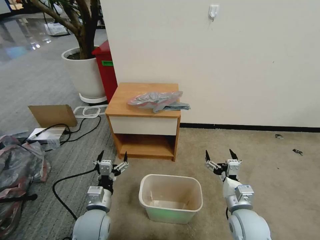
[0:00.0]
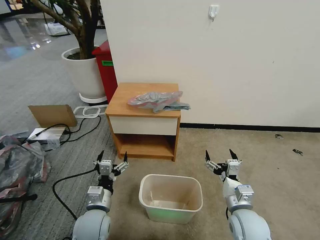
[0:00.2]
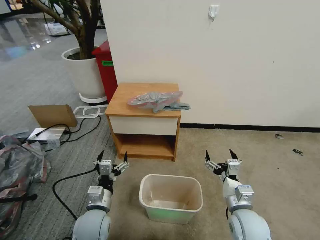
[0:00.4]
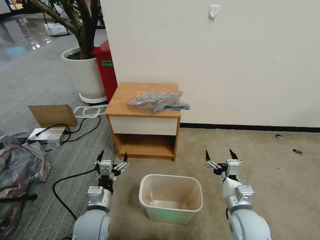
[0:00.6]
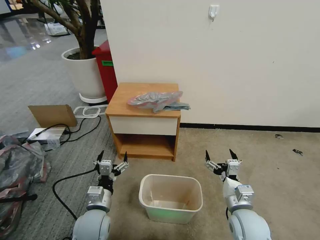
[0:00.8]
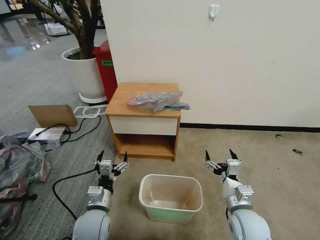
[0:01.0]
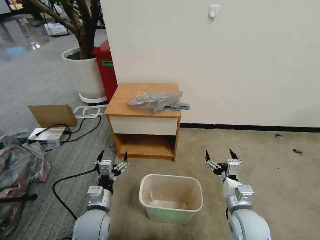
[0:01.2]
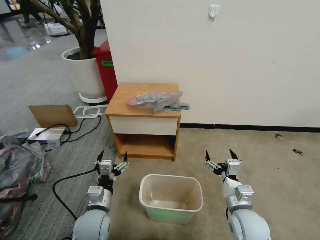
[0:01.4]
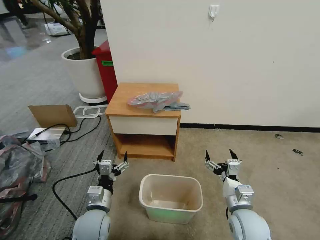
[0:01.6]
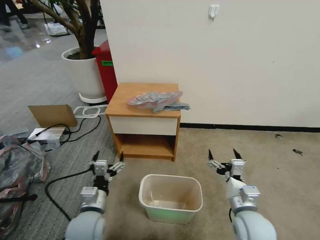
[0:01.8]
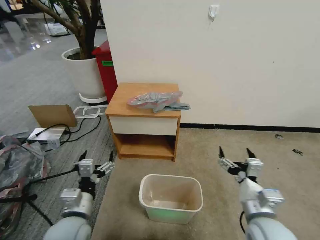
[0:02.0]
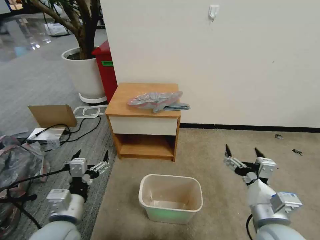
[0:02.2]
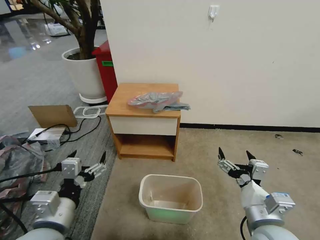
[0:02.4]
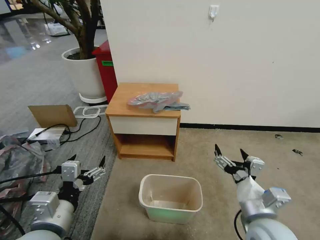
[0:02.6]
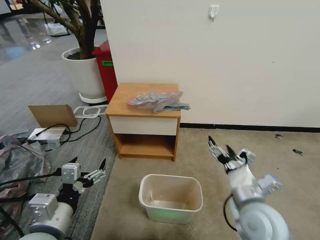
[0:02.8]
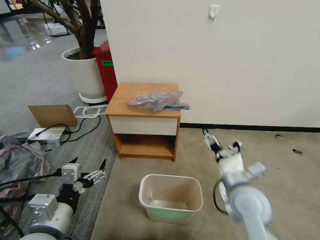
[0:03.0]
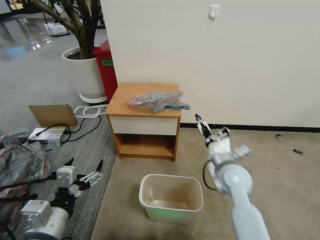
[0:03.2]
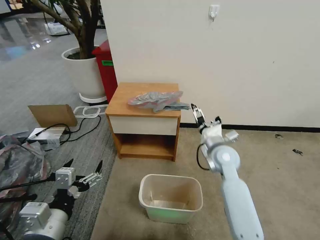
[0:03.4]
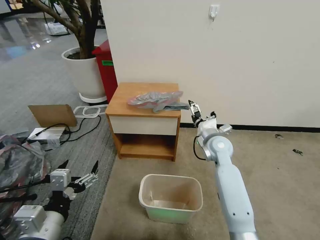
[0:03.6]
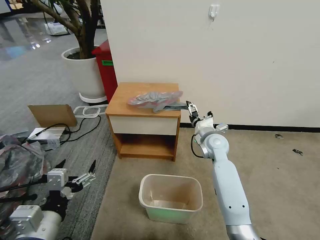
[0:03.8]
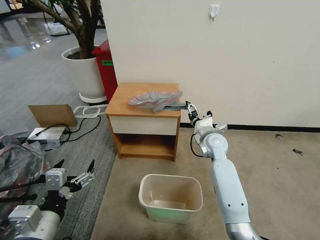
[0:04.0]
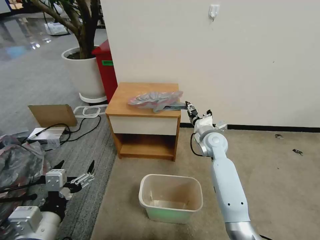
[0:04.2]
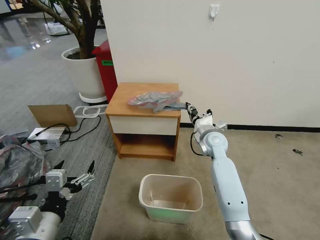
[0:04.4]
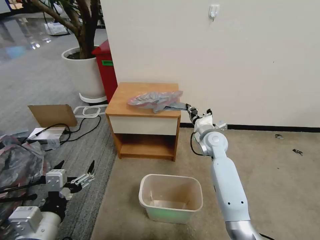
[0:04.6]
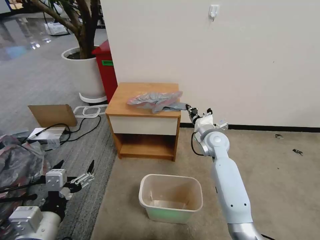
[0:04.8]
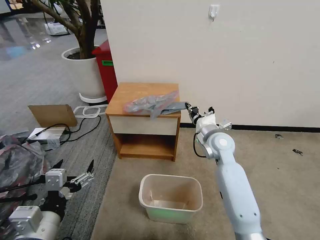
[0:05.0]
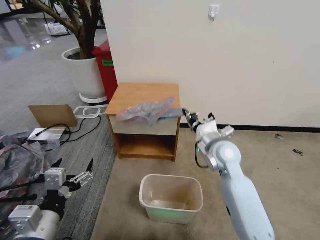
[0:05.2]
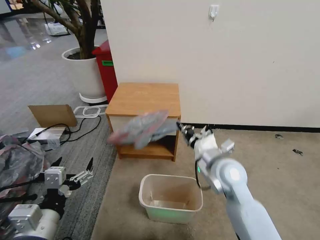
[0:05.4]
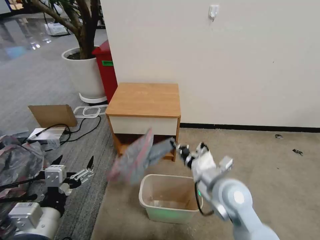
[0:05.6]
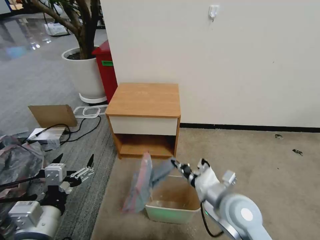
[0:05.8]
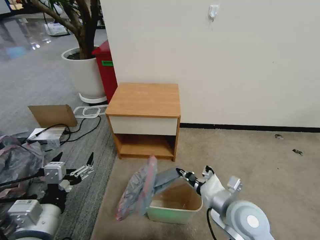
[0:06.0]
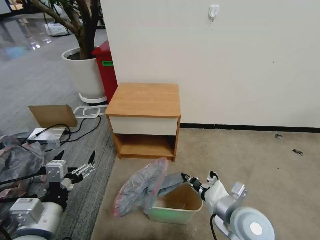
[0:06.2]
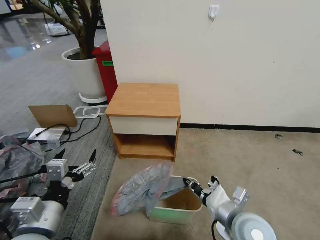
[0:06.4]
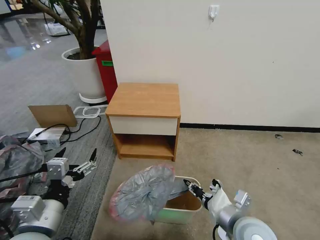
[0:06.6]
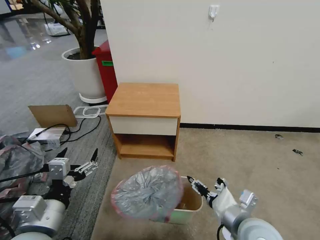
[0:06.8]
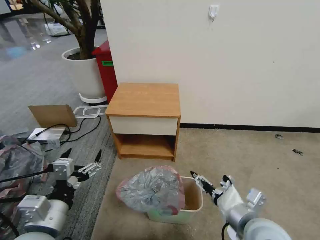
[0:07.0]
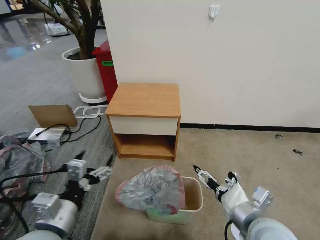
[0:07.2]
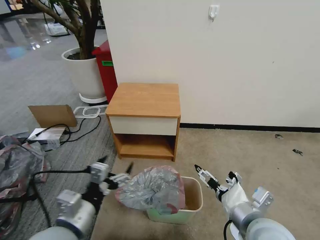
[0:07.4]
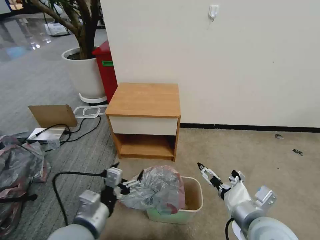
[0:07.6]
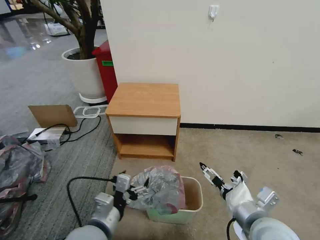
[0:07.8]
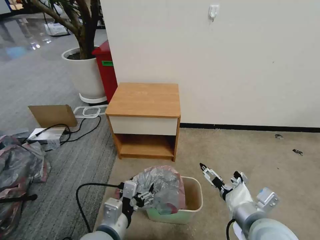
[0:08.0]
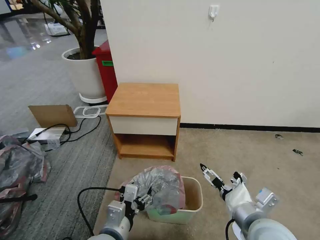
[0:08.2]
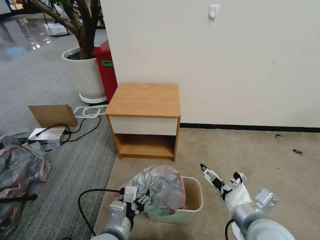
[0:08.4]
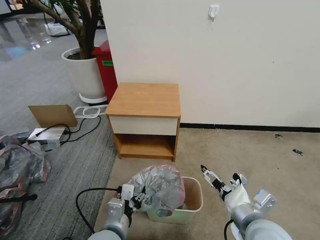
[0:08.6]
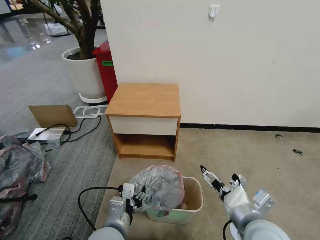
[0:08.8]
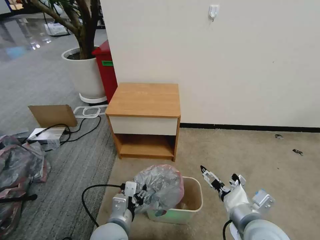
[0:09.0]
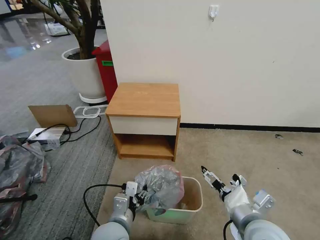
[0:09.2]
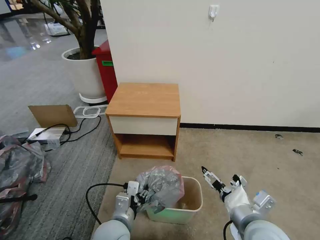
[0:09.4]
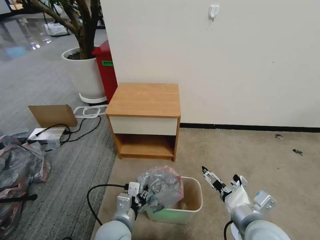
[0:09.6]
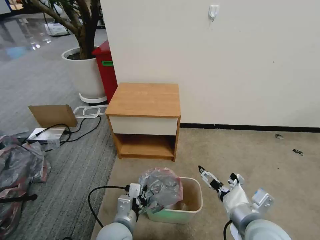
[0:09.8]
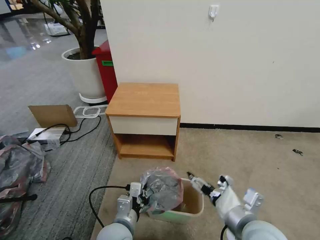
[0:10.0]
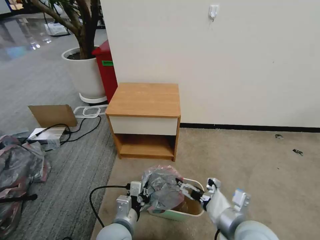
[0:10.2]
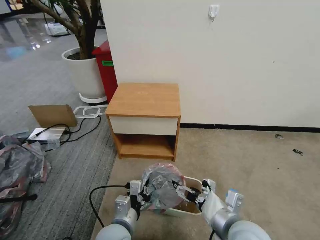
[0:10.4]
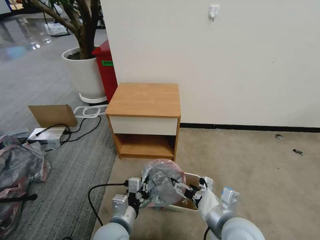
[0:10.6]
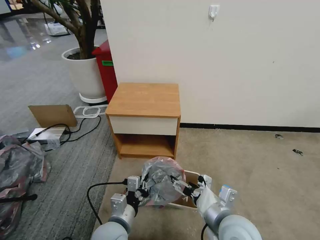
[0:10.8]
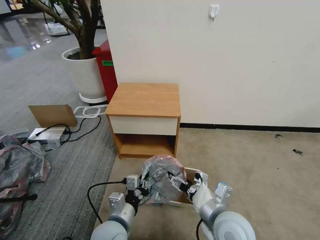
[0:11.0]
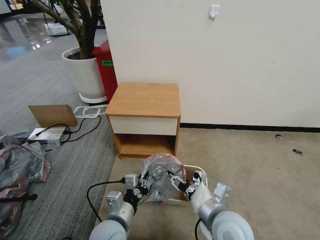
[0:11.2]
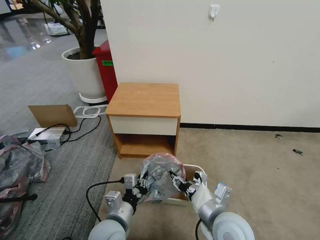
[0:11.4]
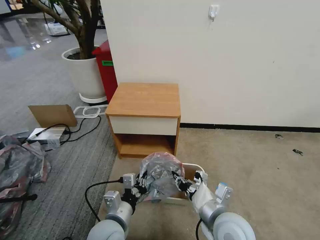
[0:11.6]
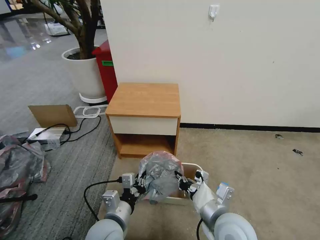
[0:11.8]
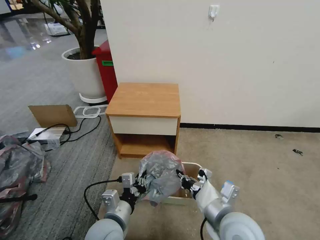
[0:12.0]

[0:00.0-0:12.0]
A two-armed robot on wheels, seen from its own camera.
Task of the whole recording: Pick up the garbage bag from the table and place it over the trash can.
0:01.6 to 0:03.0: The left gripper is displaced upward and backward by some 15 cm. Meanwhile the right gripper moves upward, some 10 cm.
0:03.0 to 0:04.4: The right gripper shifts roughly 20 cm forward, and closes its fingers.
0:04.4 to 0:06.0: The right gripper shifts approximately 25 cm backward, and closes up.
0:06.0 to 0:07.6: The left gripper moves to the right, about 5 cm; the right gripper changes place by approximately 5 cm, and opens.
0:07.6 to 0:09.0: The left gripper moves downward and to the right, roughly 10 cm, and closes its fingers.
0:09.0 to 0:10.4: The left gripper closes.
0:10.4 to 0:12.0: The right gripper closes up.

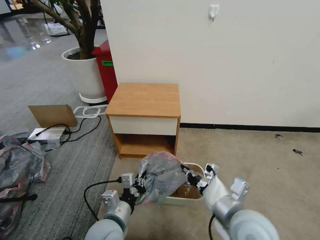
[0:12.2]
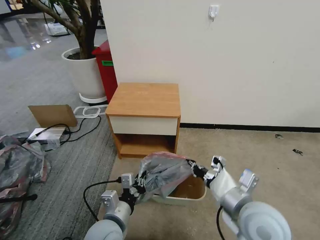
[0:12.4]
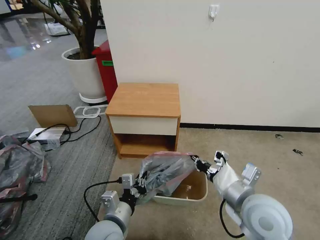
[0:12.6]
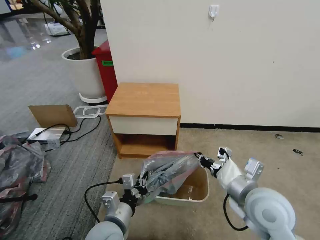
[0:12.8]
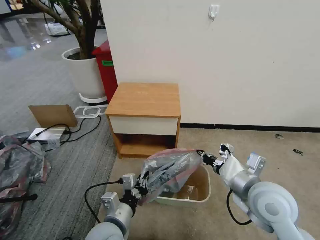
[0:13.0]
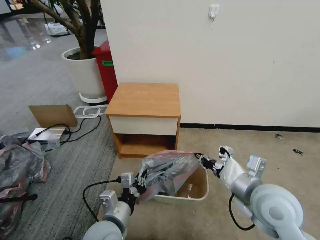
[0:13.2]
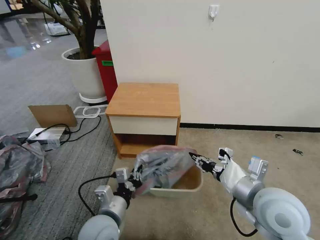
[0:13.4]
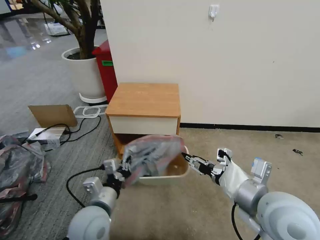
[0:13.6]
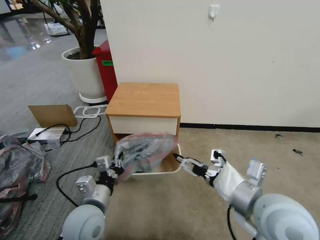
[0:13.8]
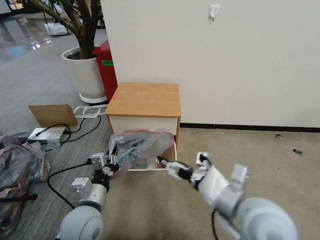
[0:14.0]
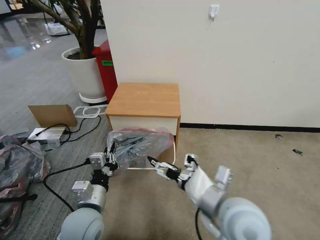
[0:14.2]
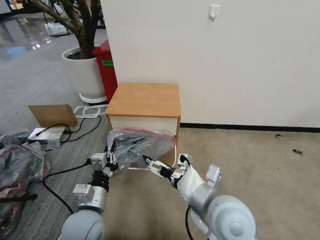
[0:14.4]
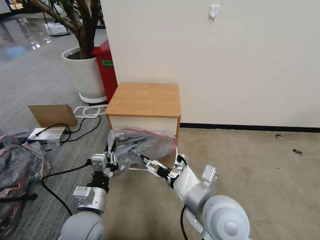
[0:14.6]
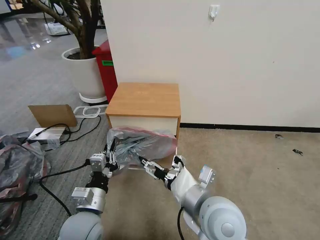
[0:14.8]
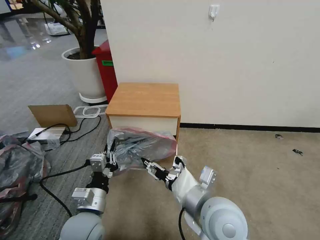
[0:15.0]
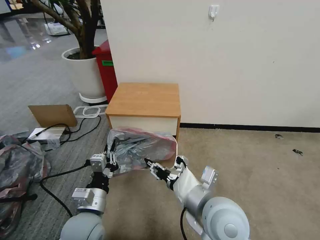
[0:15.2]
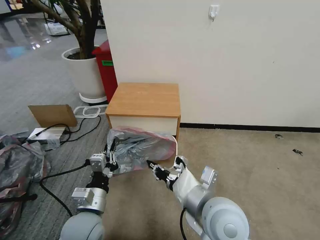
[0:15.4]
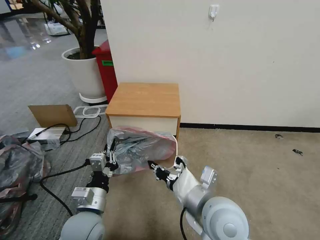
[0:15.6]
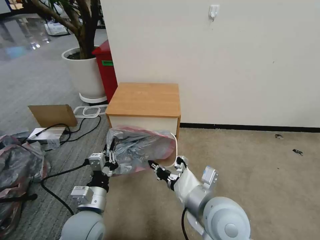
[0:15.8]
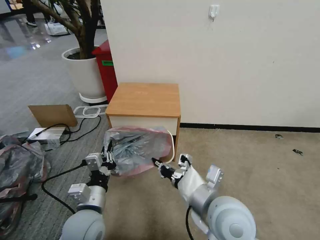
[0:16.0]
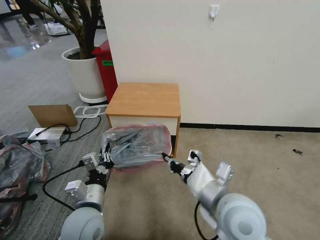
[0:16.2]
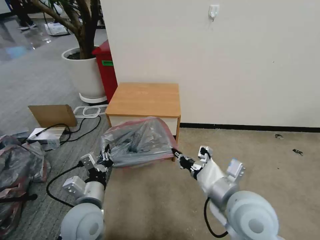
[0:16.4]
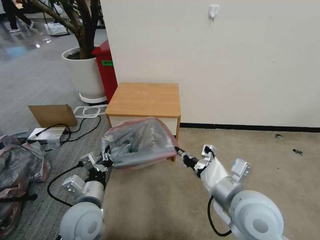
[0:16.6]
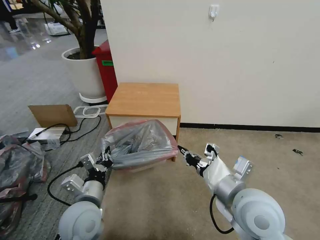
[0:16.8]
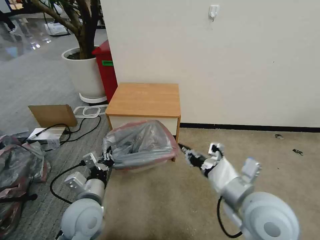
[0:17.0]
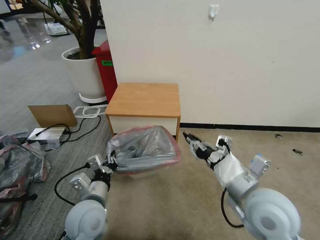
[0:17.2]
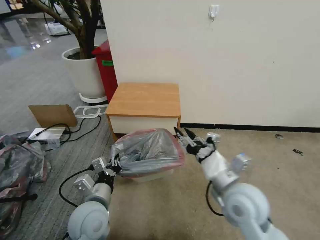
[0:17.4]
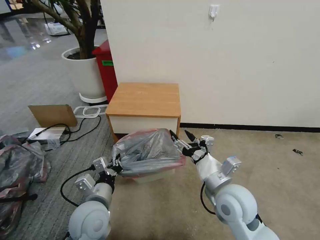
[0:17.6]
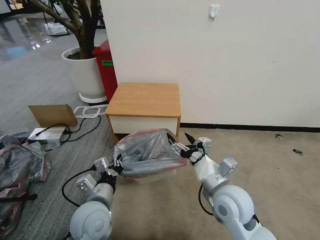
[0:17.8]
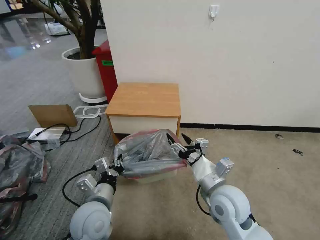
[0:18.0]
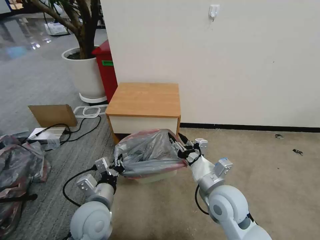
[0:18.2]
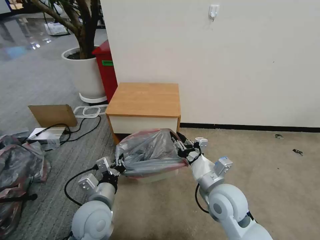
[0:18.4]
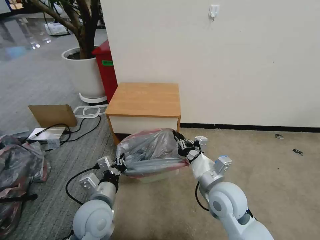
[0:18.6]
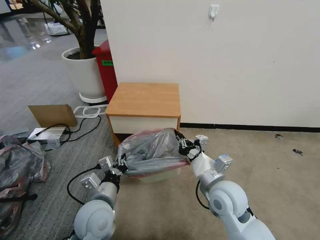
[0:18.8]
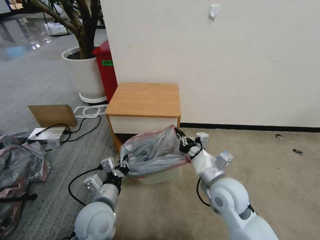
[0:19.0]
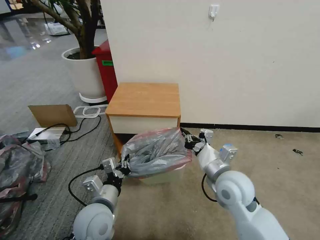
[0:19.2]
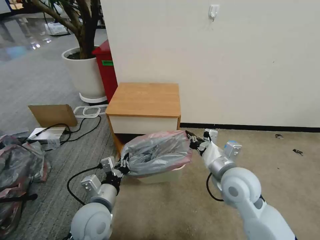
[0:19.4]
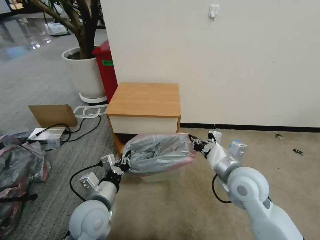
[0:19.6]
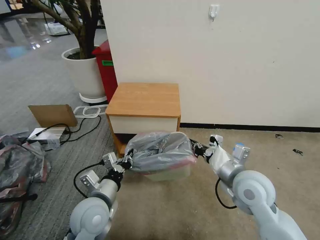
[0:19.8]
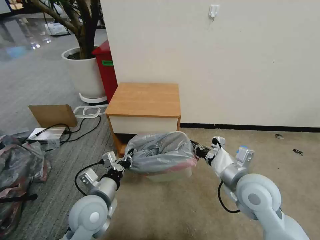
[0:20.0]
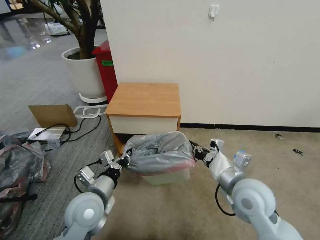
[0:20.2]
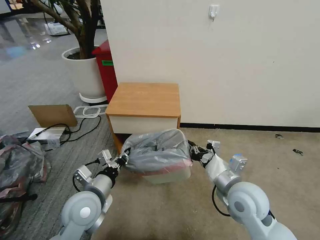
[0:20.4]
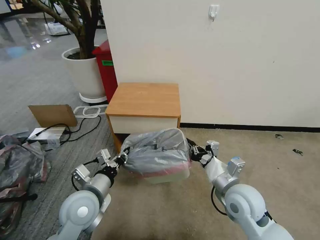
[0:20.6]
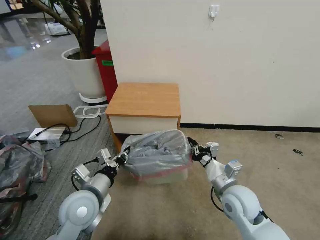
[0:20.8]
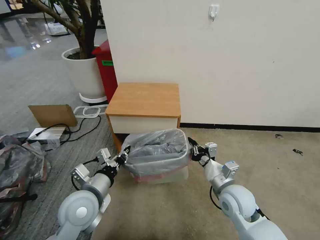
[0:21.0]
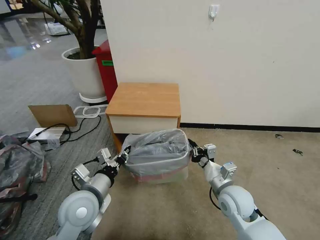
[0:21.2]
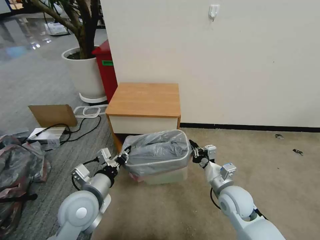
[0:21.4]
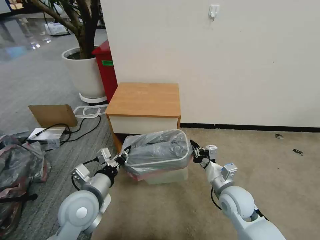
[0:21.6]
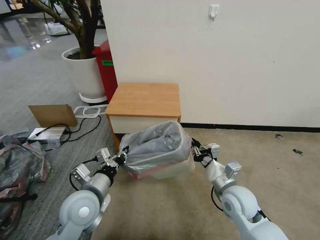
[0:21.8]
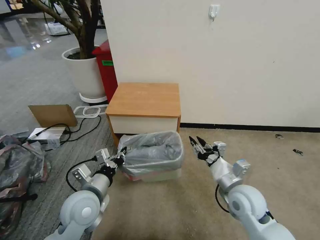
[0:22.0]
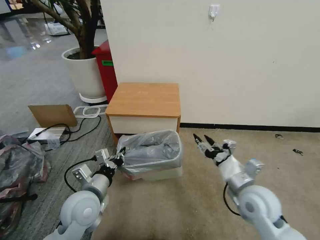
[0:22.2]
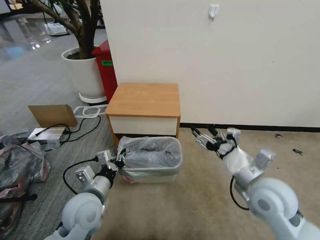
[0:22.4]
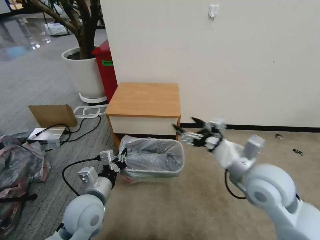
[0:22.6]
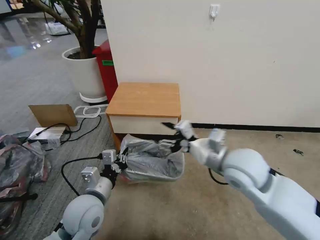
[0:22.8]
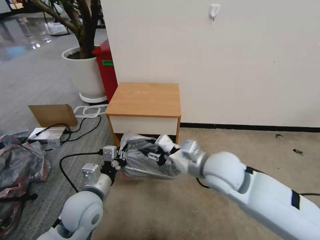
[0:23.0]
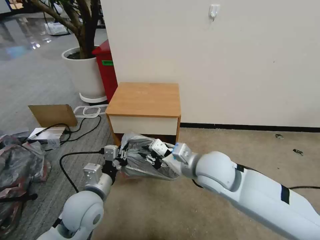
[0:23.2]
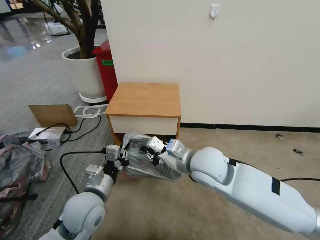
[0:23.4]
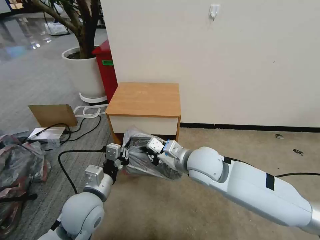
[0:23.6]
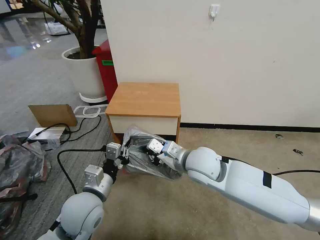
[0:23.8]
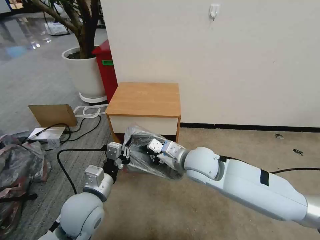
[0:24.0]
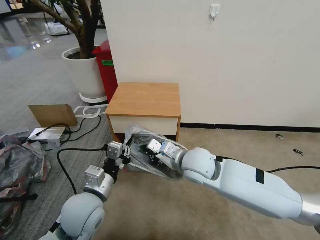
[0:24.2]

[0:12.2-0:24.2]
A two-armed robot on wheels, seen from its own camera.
Task of the whole recording: Pick up the garbage bag from the table and place it over the trash can.
0:12.2 to 0:13.8: The left gripper shifts by some 5 cm. The right gripper heads upward, covering roughly 10 cm, and opens up.
0:13.8 to 0:15.2: The right gripper goes roughly 10 cm to the left, and closes up.
0:15.2 to 0:16.6: The right gripper is displaced to the right by some 5 cm, and closes.
0:16.6 to 0:18.2: The right gripper goes approximately 10 cm downward, and opens its fingers.
0:18.2 to 0:19.8: The right gripper travels to the right by roughly 5 cm, and closes its fingers.
0:19.8 to 0:21.2: The right gripper travels downward by approximately 10 cm.
0:21.2 to 0:22.6: The right gripper shifts roughly 15 cm upward, and opens.
0:22.6 to 0:24.2: The right gripper is displaced to the left and forward by some 15 cm, and closes its fingers.
